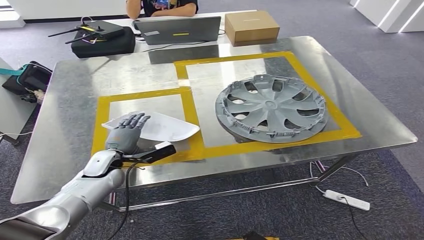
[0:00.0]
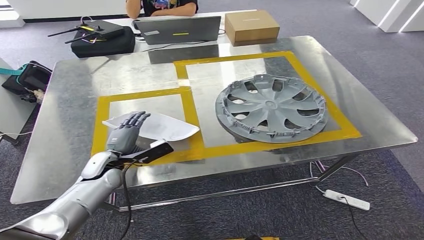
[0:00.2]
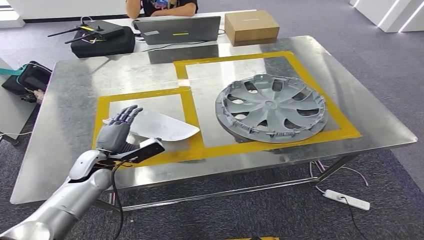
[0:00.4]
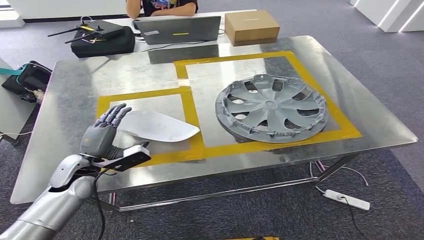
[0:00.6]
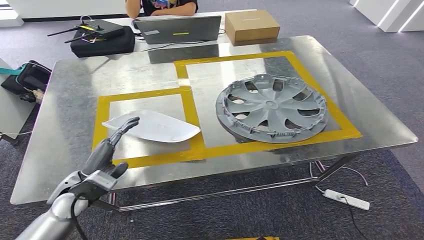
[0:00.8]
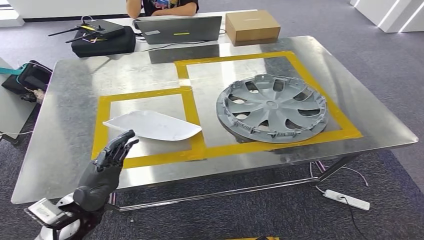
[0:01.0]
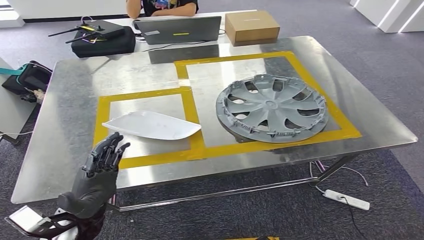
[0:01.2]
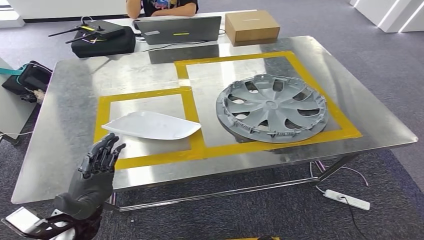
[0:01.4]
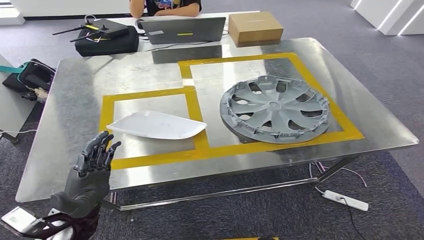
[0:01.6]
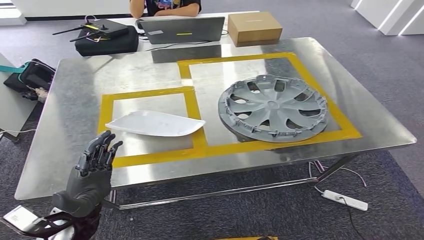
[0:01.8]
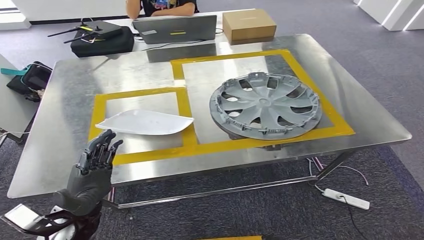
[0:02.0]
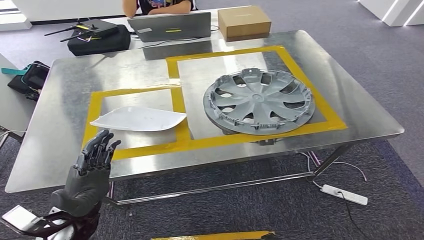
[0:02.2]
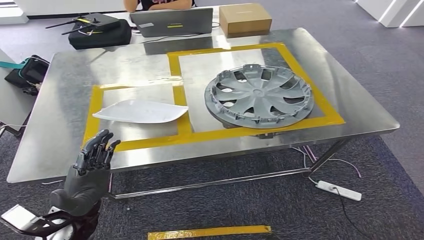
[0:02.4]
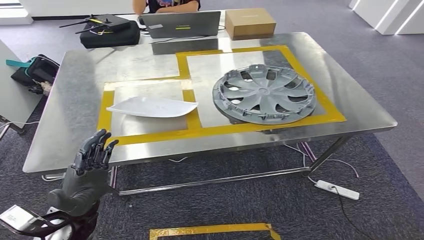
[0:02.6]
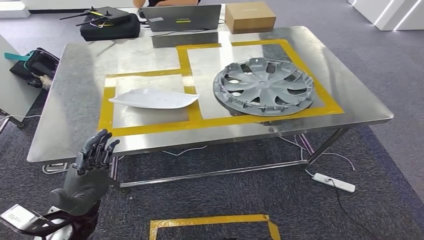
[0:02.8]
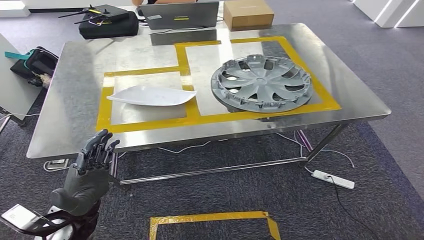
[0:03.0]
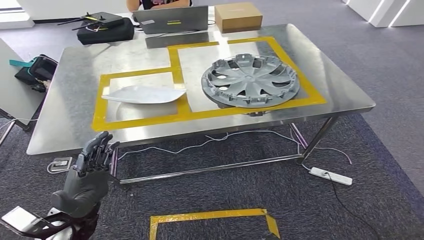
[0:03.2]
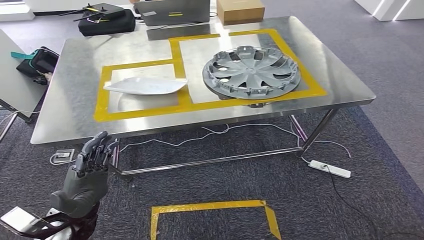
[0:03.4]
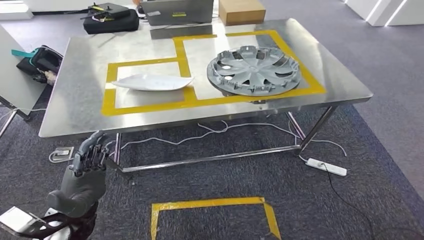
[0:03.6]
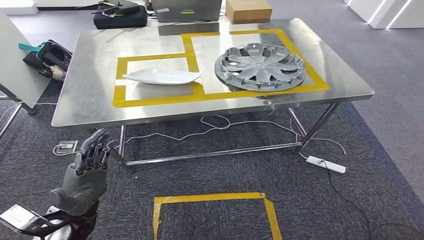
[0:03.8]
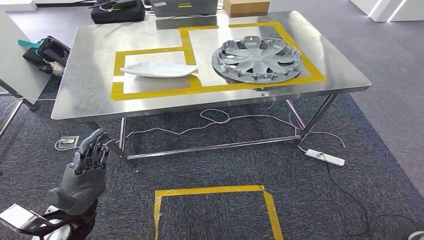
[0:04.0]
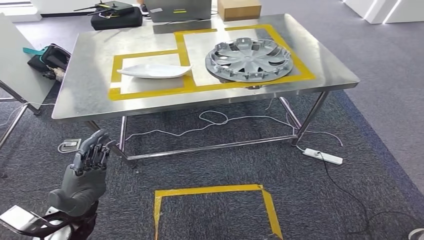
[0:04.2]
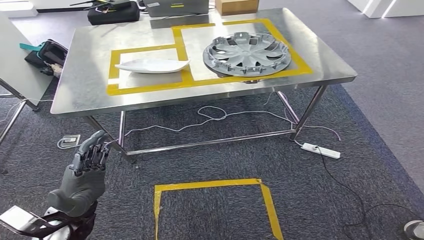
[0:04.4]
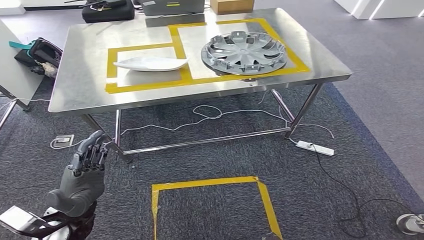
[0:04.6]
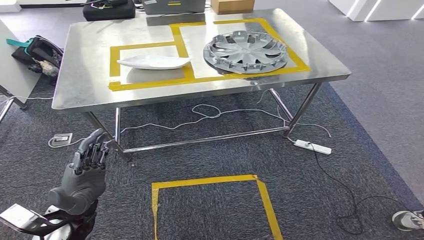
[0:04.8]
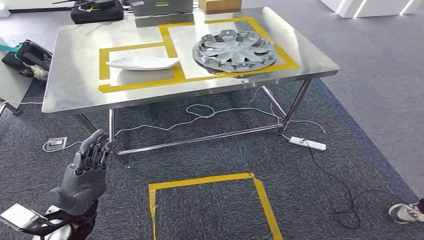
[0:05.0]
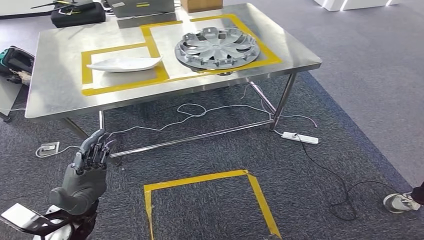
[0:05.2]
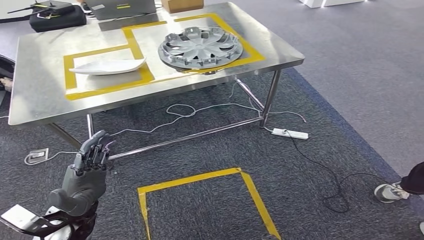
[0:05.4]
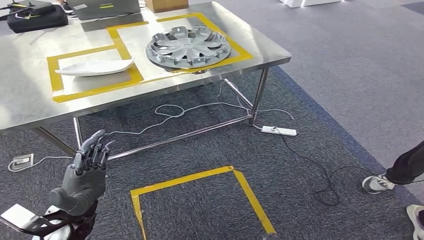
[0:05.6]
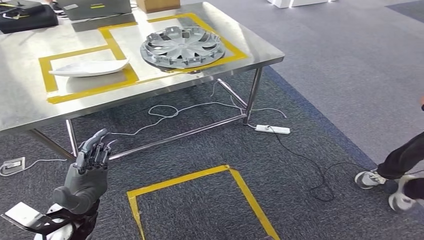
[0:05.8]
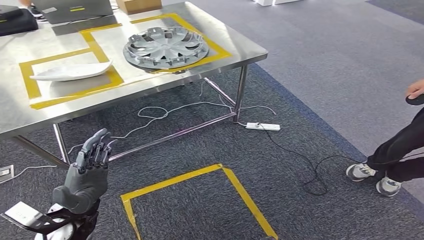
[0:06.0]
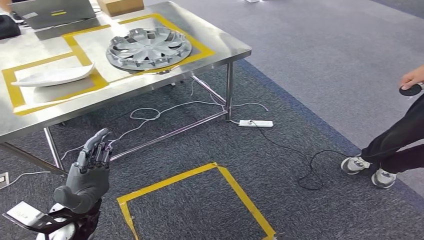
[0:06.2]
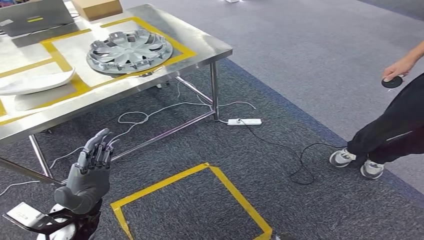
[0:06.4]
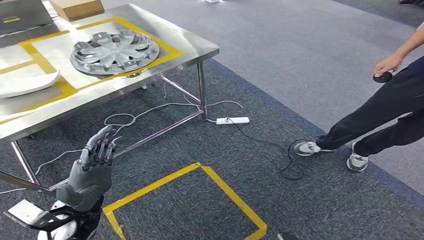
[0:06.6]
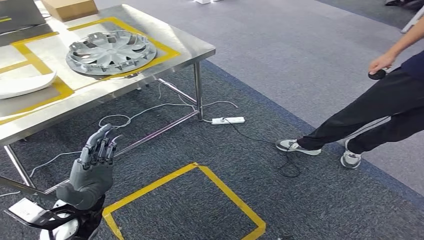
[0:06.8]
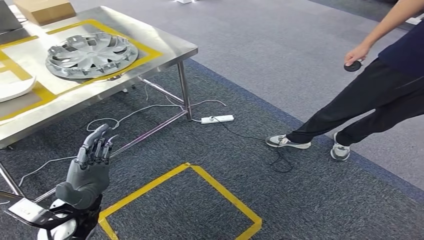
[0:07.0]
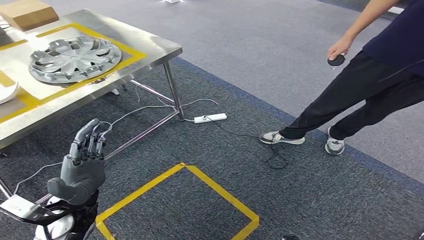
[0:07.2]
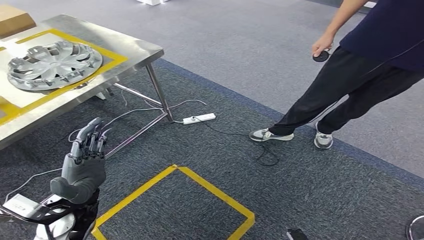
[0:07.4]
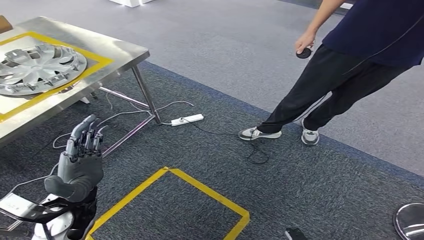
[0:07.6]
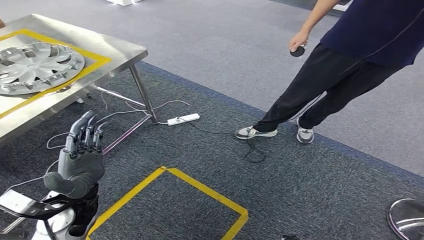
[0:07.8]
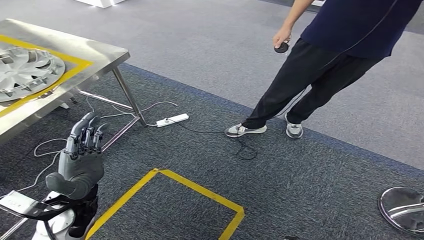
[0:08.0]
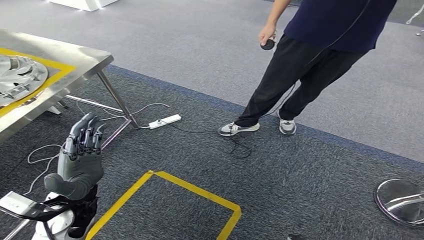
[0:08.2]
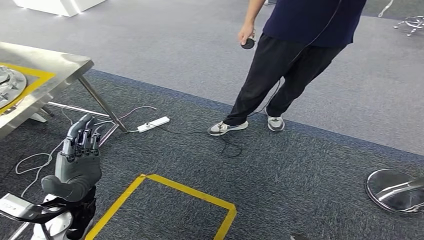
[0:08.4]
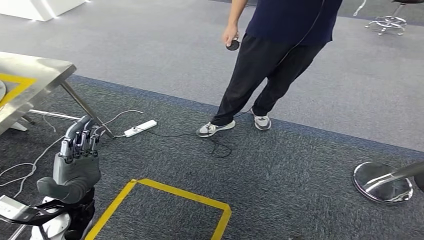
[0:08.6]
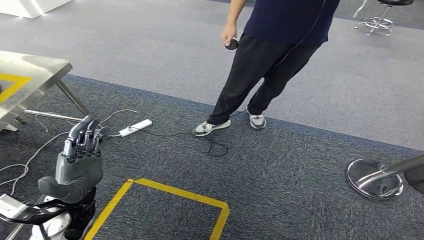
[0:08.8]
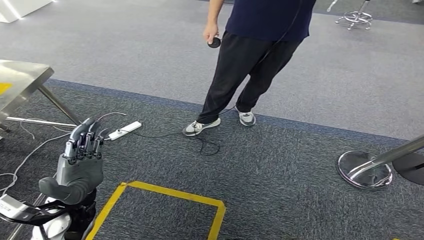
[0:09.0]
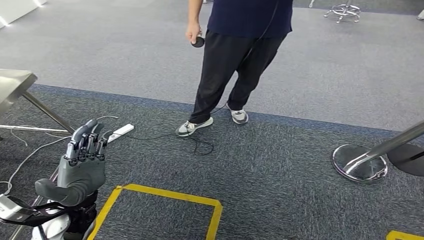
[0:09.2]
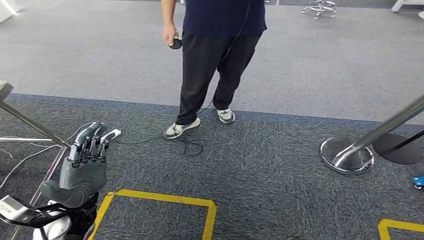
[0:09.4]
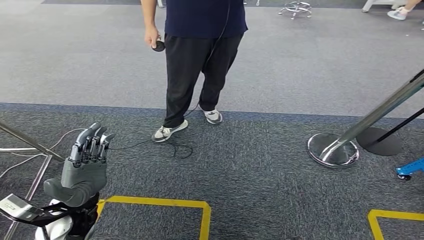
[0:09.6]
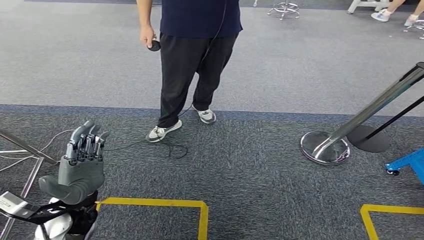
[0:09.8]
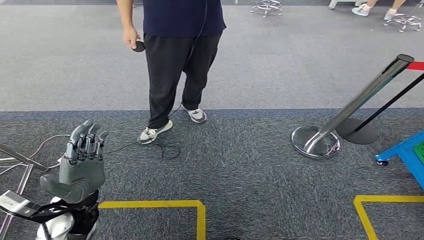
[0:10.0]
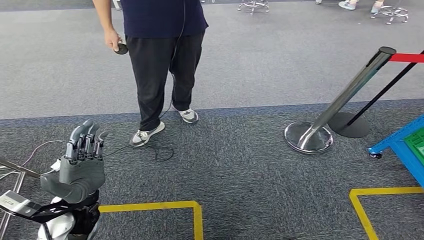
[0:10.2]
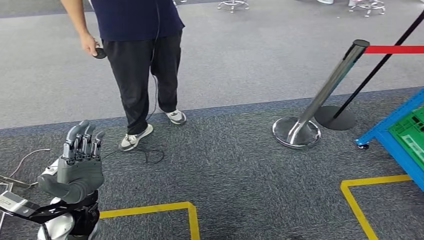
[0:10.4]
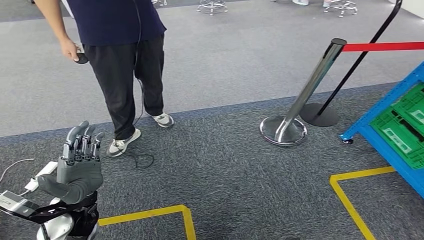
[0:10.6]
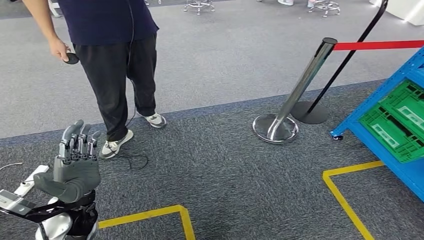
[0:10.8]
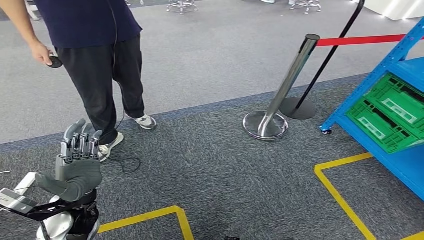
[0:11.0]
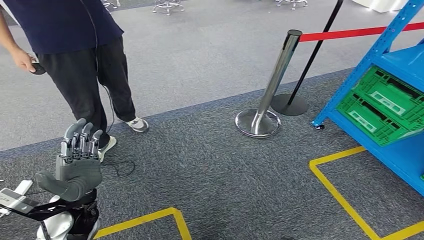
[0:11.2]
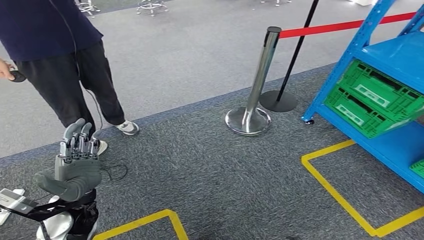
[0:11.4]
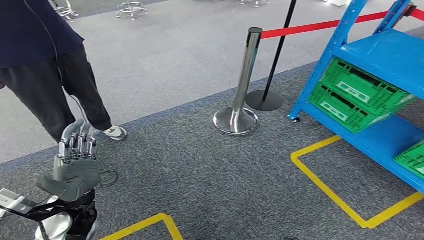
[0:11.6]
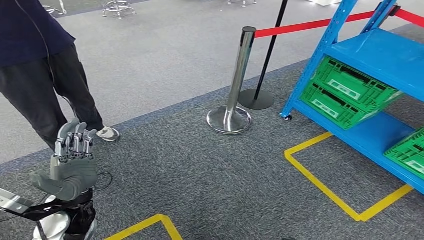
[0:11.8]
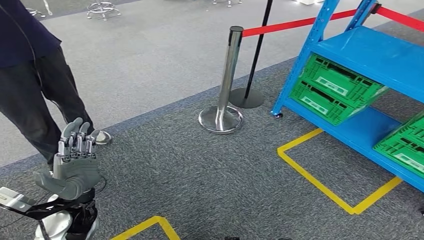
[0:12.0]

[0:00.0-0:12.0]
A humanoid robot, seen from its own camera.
0:00.0 to 0:01.6: The left hand goes approximately 15 cm backward.

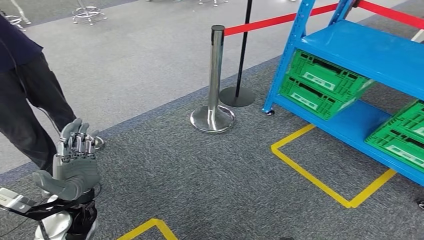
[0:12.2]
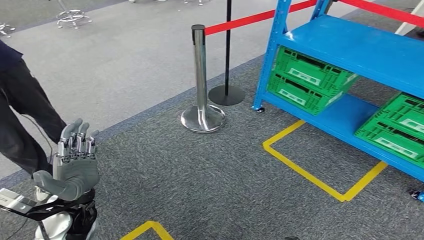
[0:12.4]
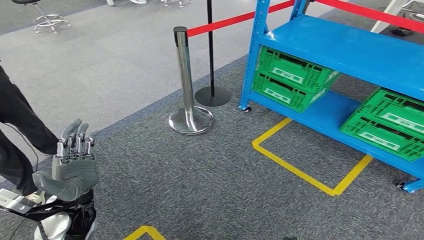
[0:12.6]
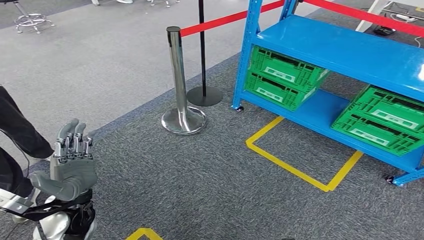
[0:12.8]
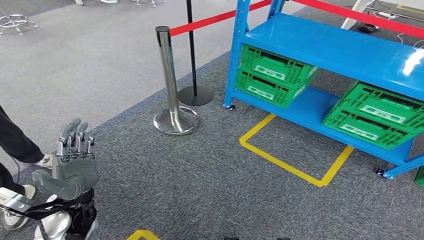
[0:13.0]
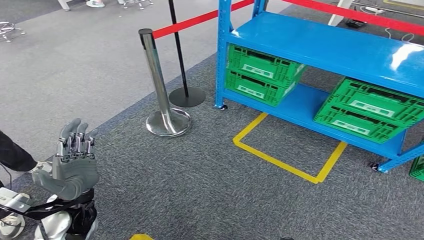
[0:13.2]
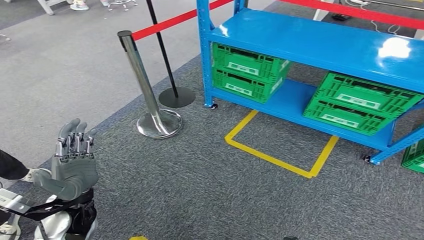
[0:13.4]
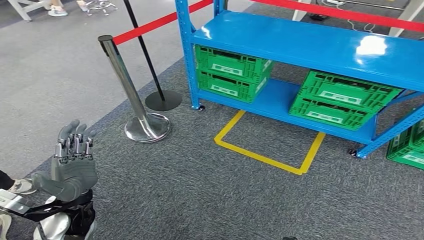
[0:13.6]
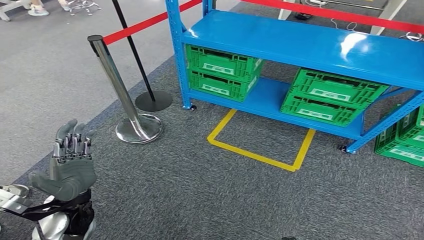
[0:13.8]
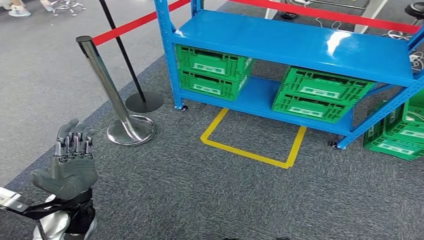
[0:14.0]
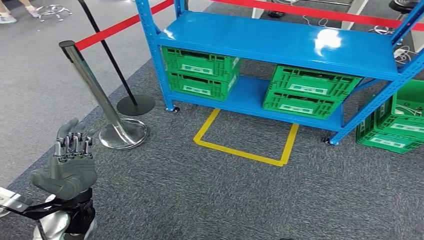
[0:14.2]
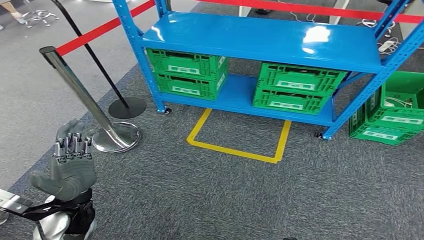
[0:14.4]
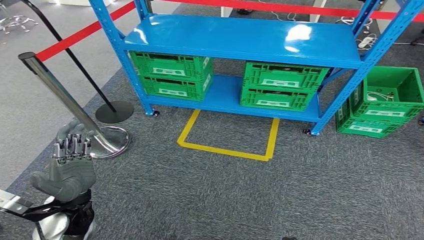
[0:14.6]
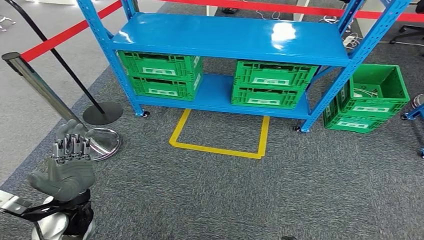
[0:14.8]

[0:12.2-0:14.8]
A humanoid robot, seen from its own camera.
Step, 0:12.2 to 0:14.8: Return to the initial position at the workbench.
